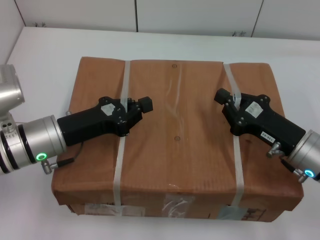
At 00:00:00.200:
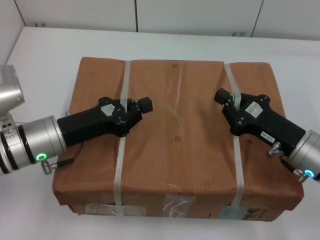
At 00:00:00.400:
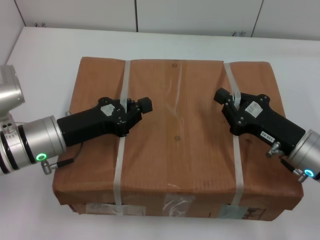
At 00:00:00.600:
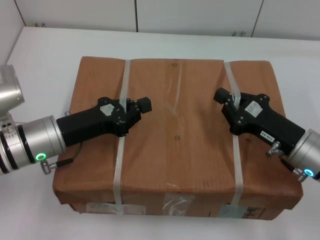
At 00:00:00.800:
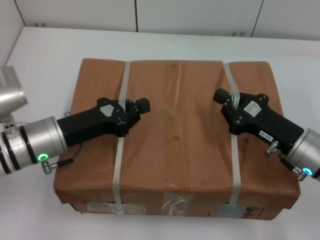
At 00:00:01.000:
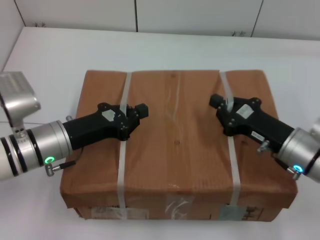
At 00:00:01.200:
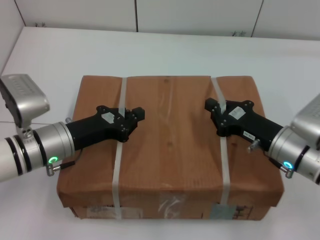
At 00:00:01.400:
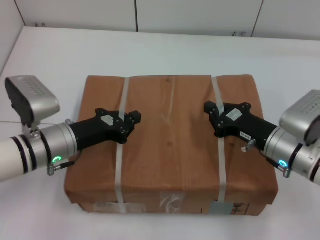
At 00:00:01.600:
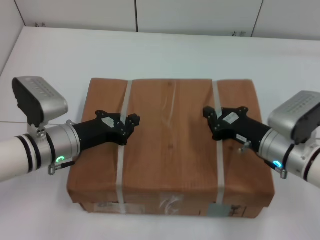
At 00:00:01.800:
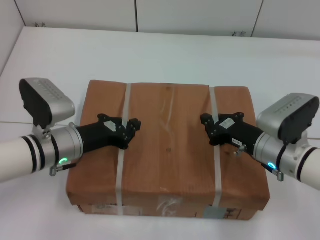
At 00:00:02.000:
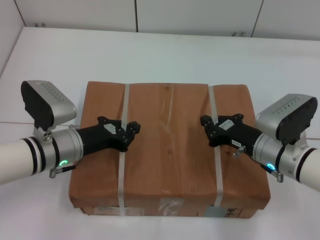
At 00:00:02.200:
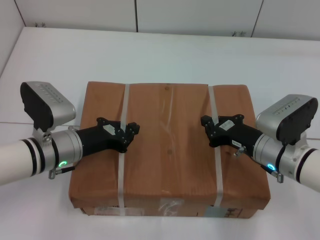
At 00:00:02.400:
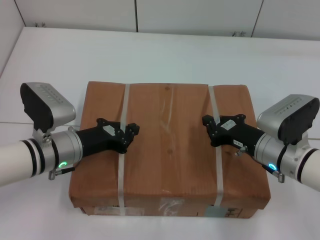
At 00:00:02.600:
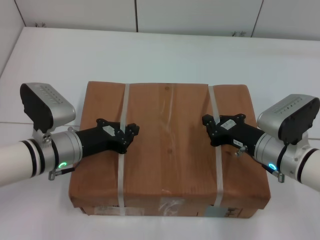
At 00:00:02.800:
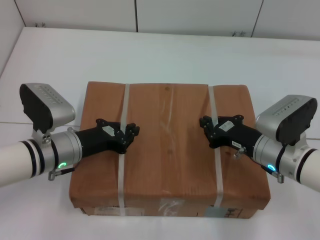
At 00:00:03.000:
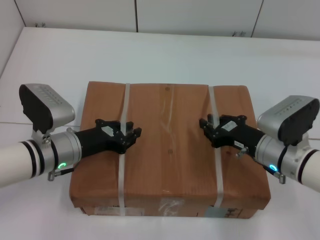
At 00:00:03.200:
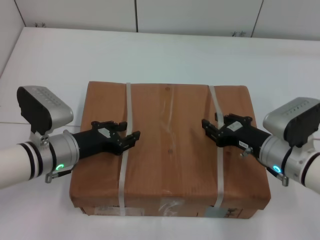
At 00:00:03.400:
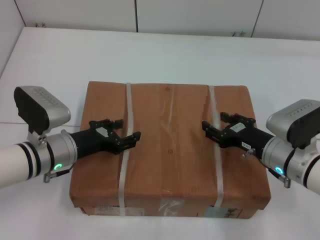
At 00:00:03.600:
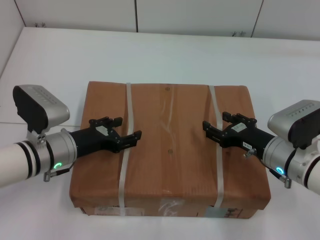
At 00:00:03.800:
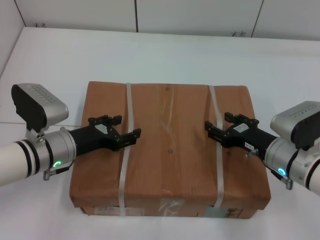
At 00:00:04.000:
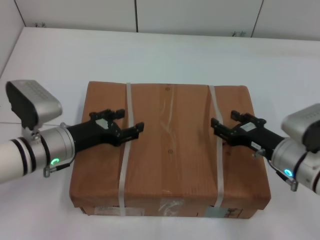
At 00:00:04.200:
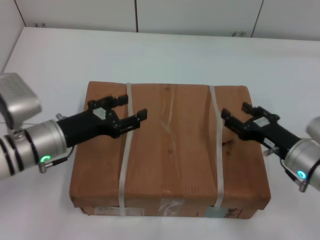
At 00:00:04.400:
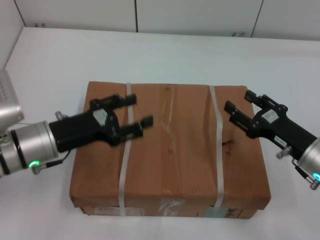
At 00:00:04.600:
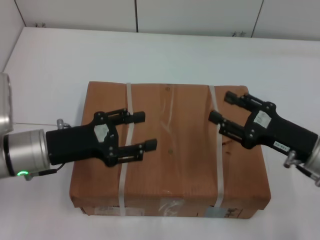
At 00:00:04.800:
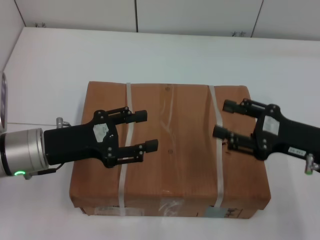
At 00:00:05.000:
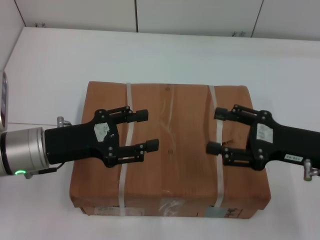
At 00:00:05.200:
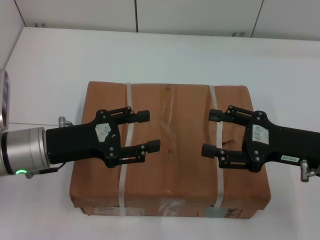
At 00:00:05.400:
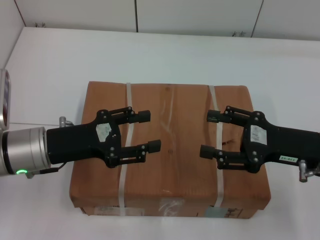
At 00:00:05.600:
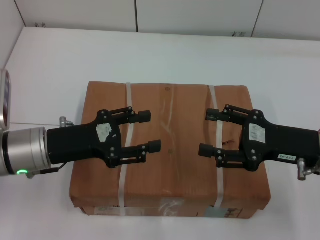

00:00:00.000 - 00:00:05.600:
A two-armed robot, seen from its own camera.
Task of the whole recording: place the box on the table with both arms.
Step, 00:00:00.000 - 00:00:01.800: Place the box on the table with left gripper.
Step, 00:00:00.000 - 00:00:01.800: Place the box on the table with right gripper.
Step, 00:00:02.000 - 00:00:03.400: Loosen the box on the table with left gripper.
Step, 00:00:02.000 - 00:00:03.400: Loosen the box on the table with right gripper.
00:00:02.800 - 00:00:04.200: The left gripper opens up, while the right gripper opens.
00:00:04.200 - 00:00:05.600: The right gripper heads upward, covering some 10 cm.
